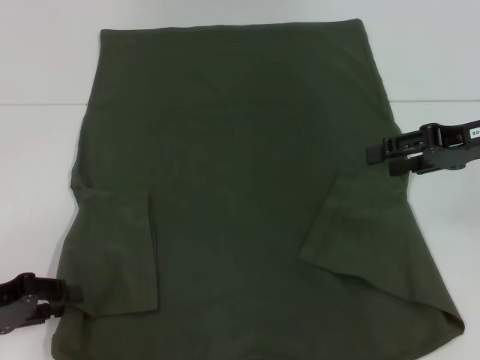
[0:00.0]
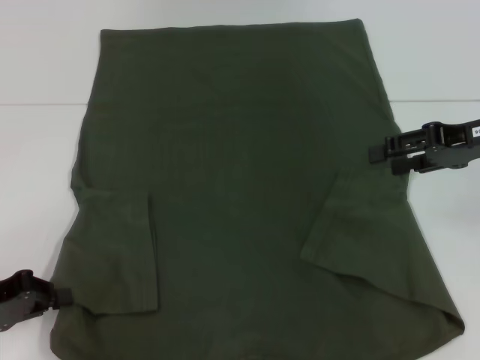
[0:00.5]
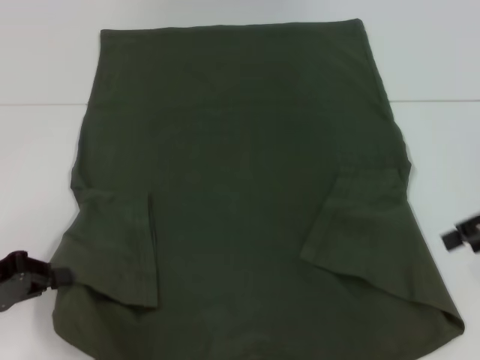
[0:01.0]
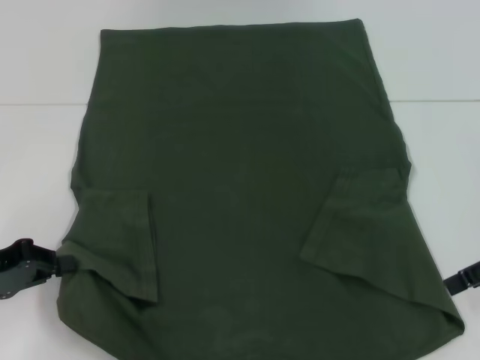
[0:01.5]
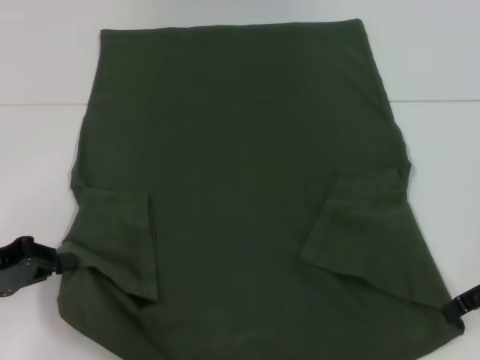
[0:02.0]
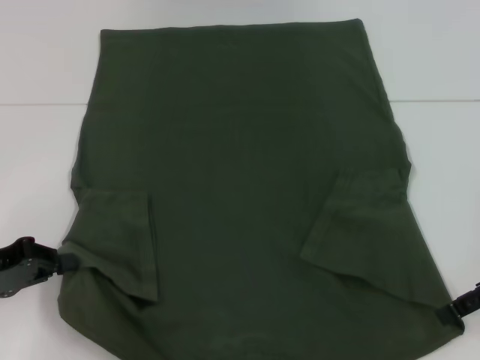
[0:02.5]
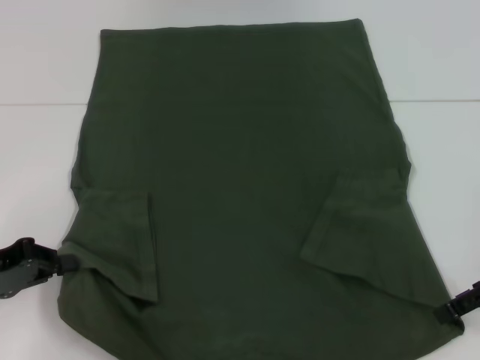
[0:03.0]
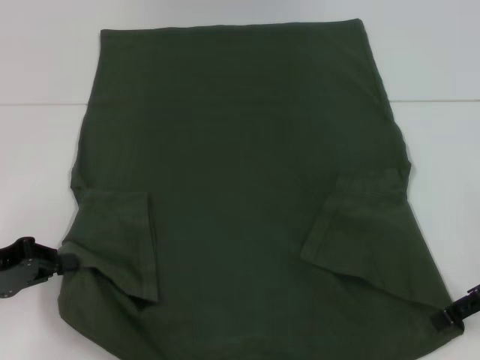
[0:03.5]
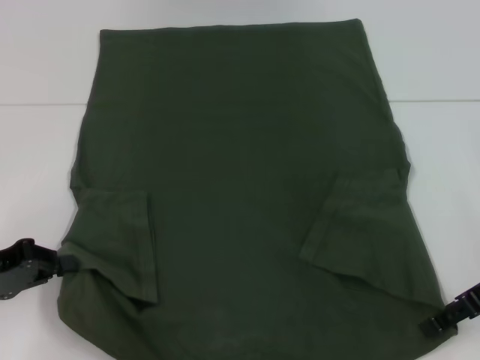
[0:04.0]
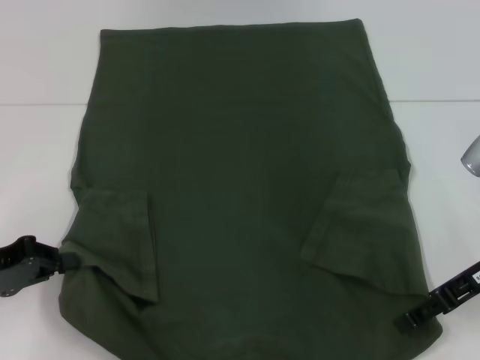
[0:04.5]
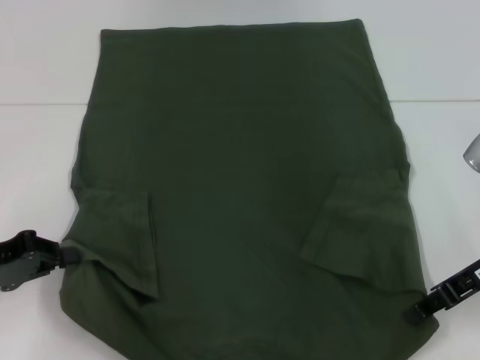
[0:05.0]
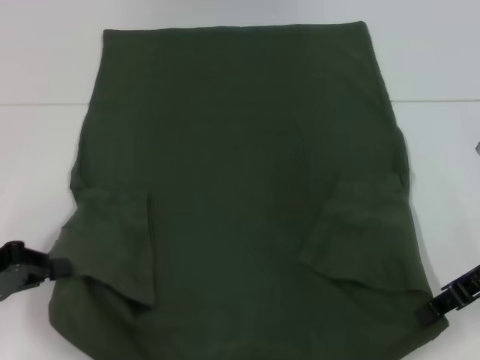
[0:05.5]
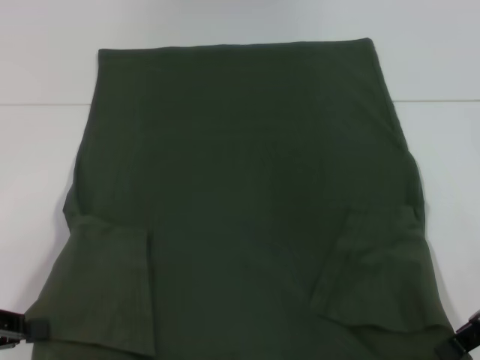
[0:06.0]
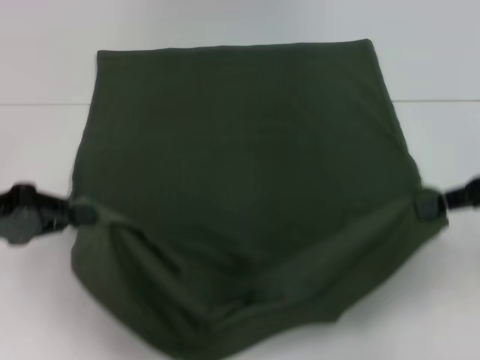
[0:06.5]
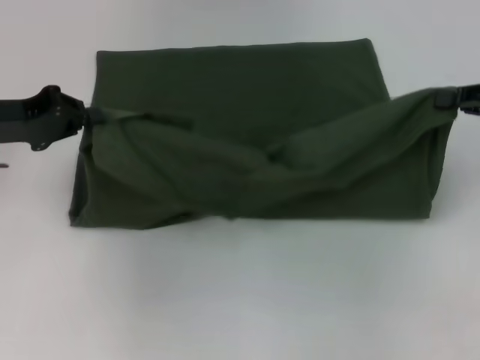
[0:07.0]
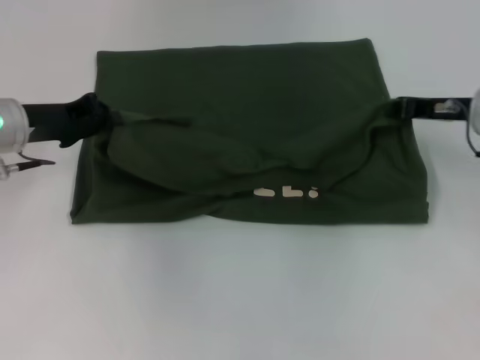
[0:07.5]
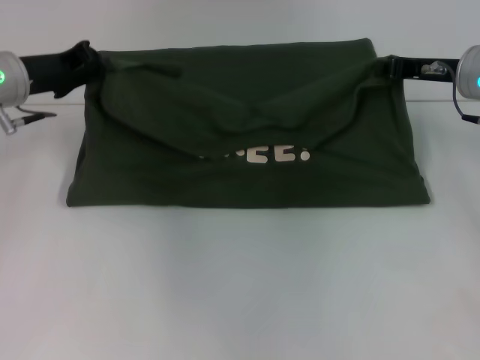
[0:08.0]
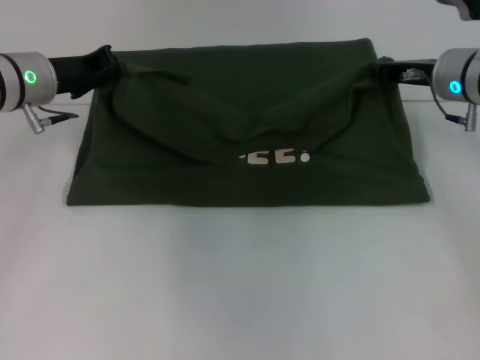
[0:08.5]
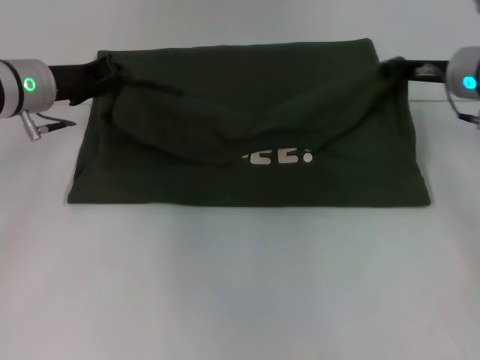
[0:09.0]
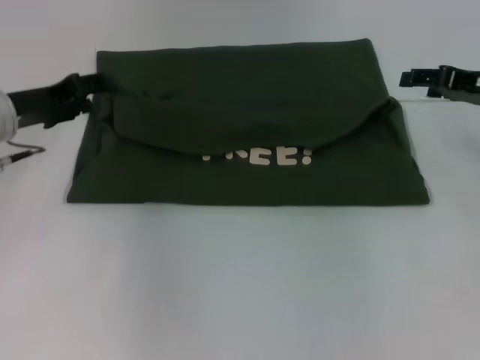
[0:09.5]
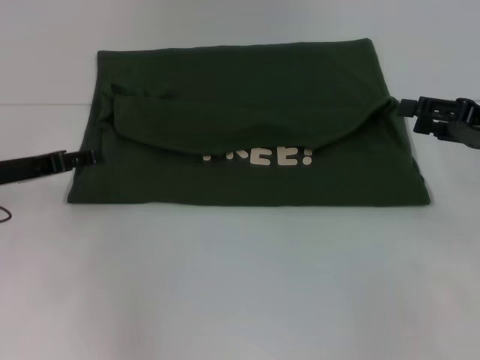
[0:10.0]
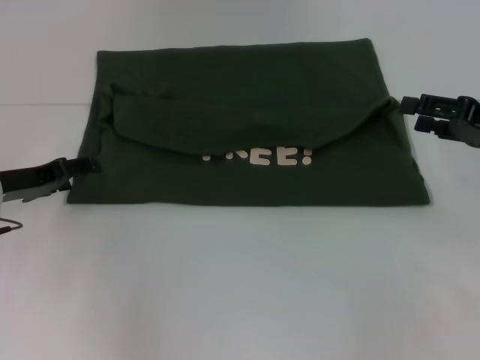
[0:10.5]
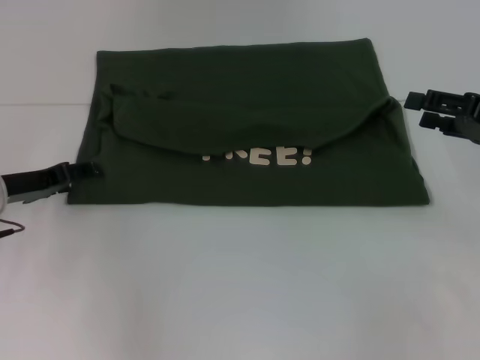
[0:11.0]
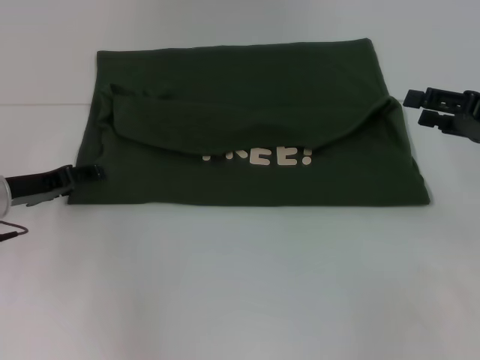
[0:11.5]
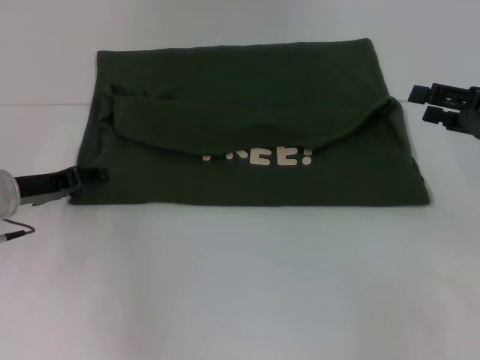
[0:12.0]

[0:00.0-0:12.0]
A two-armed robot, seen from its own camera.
Step, 1.0 to 5.0 s: Grab the bottom right corner with your right hand.
Step, 5.5 to 9.0 s: Fold the clothes with your left hand.
Step, 5.5 to 9.0 s: Fold the clothes with your right hand.
0.0 to 2.0 s: The right gripper heads backward, covering some 5 cm, while the left gripper closes its fingers.
2.0 to 4.0 s: The grippers stay close to where they were, moving slightly.
4.0 to 6.0 s: The left gripper goes some 5 cm backward, while the right gripper closes up.
6.0 to 8.0 s: The right gripper is displaced forward by approximately 15 cm, while the left gripper shifts roughly 25 cm forward and to the right.
8.0 to 10.0 s: The right gripper is displaced backward and to the right by some 10 cm, and opens up. The left gripper travels backward and downward by about 10 cm, and opens up.
10.0 to 12.0 s: The grippers stay close to where they were, moving slightly.

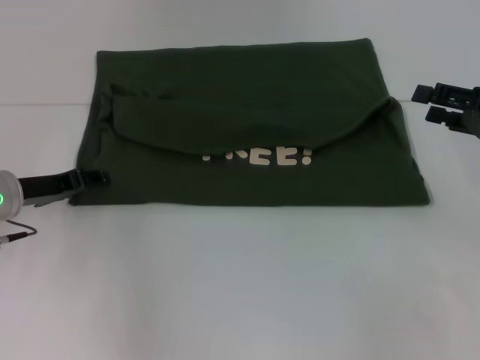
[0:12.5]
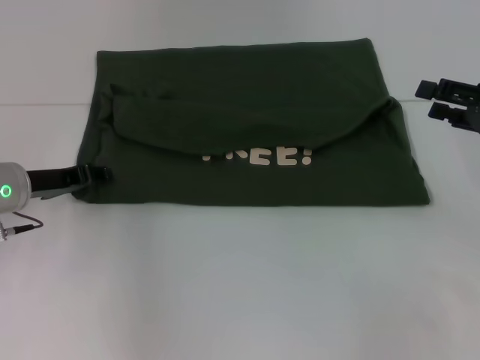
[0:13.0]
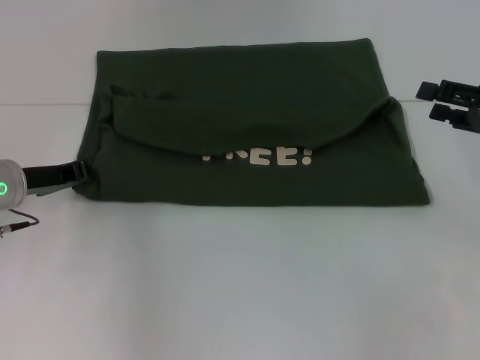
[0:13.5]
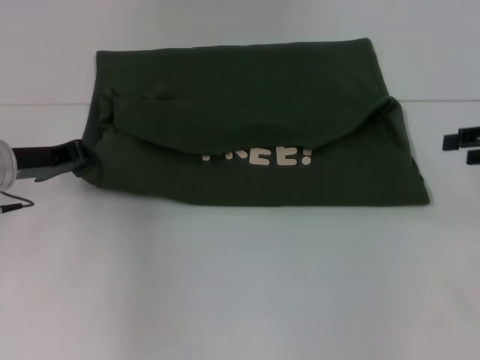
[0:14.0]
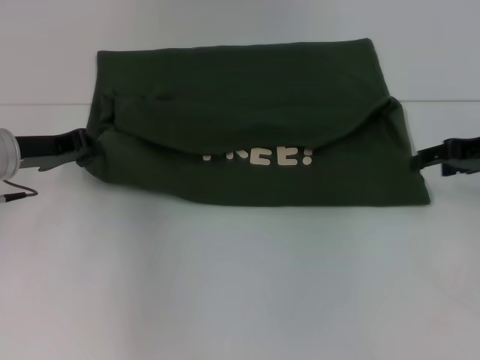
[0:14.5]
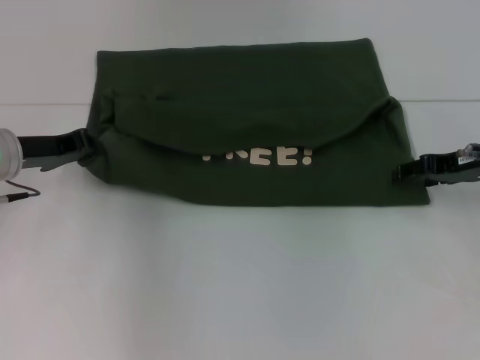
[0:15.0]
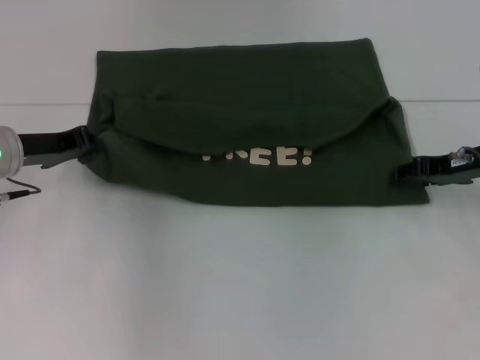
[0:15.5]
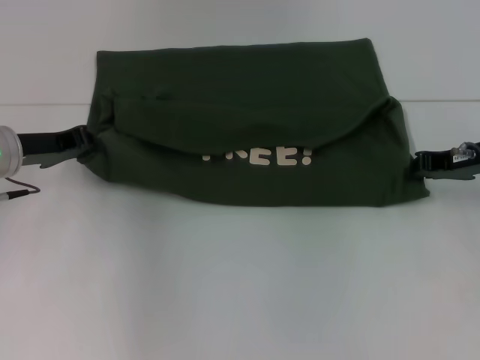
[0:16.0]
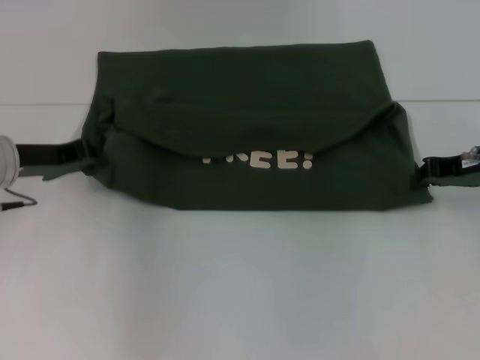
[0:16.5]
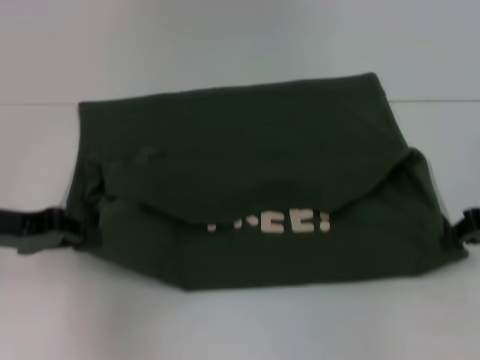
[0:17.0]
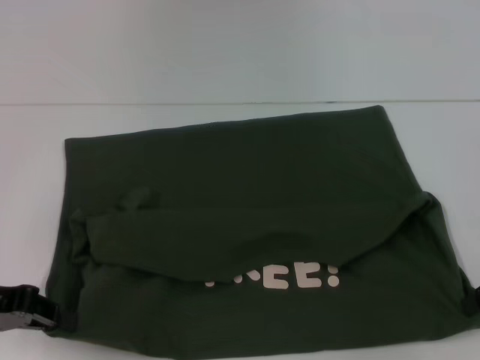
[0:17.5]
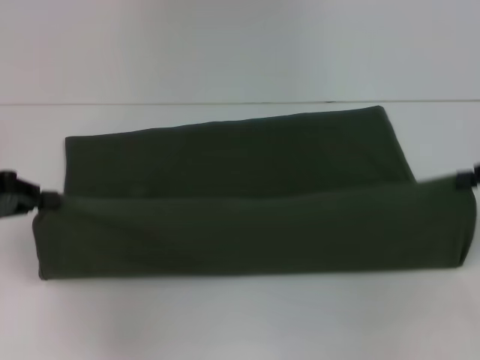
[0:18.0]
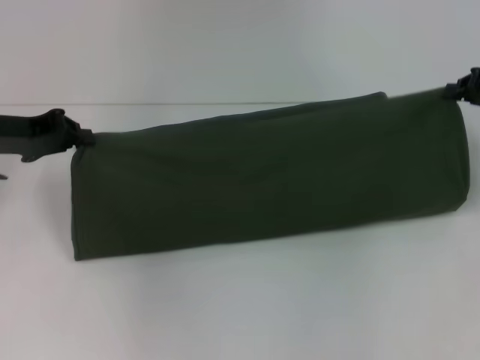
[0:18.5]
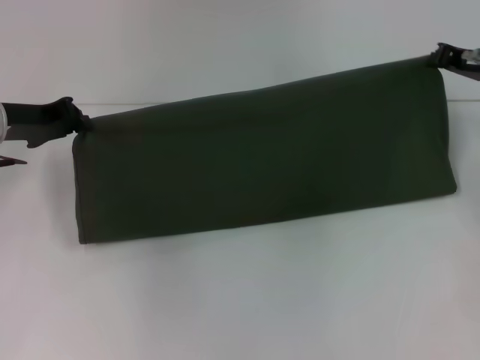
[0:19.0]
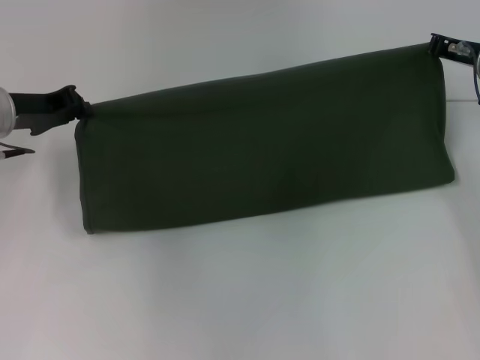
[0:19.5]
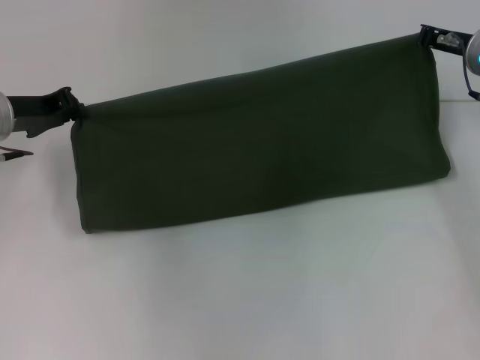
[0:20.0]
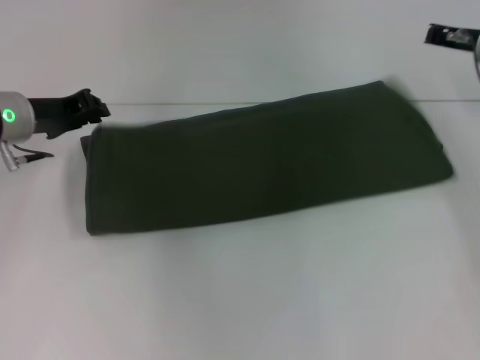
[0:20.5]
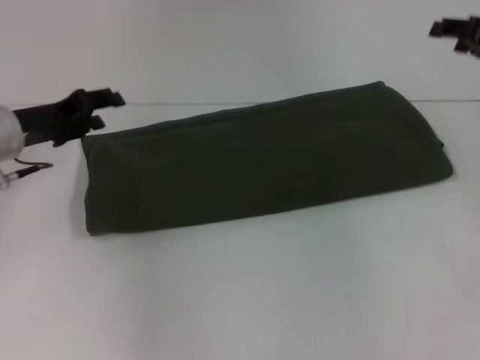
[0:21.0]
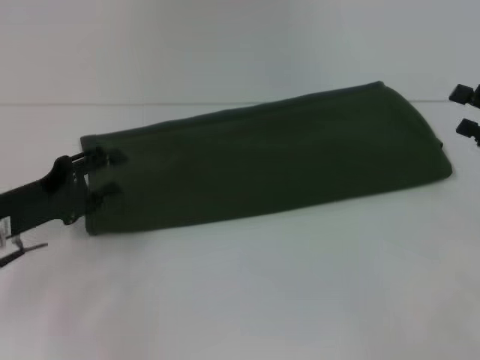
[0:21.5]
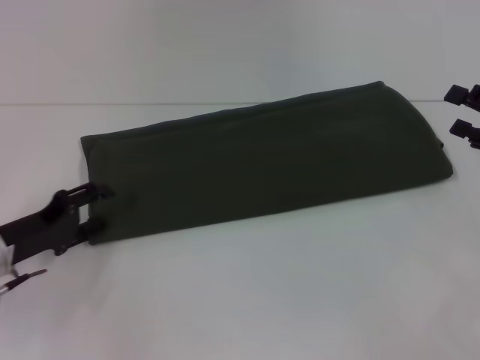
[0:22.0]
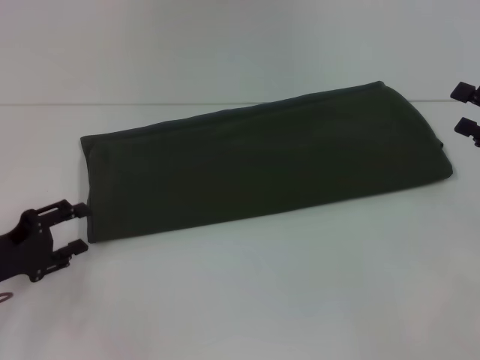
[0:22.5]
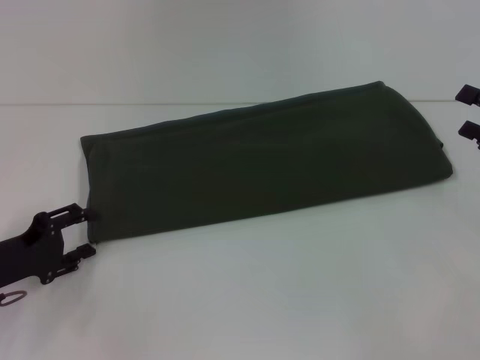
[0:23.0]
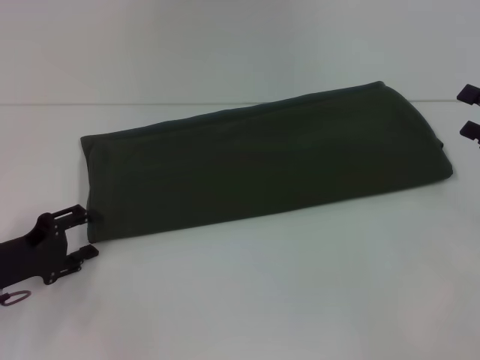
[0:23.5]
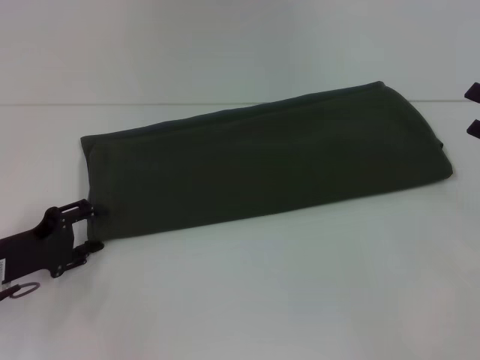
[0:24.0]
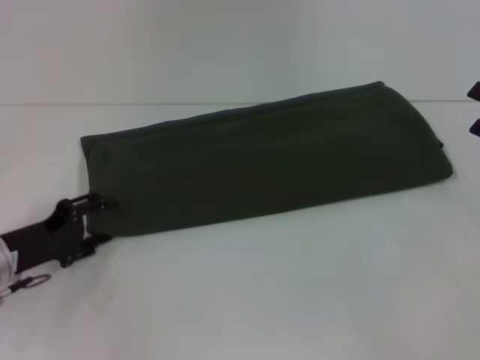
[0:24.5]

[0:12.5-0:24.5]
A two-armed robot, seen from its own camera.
Step, 12.5 to 17.5 s: Pull the clothes with your left hand.
Step, 12.5 to 17.5 s: Pull the clothes with your right hand.
Step, 18.0 to 20.5 s: Fold the clothes with your right hand.
12.5 to 14.5 s: The left gripper closes up.
14.5 to 16.5 s: The right gripper closes up.
16.5 to 18.5 s: The right gripper reaches approximately 10 cm backward, then returns; the left gripper reaches about 10 cm backward, then returns.
18.5 to 20.5 s: The right gripper moves forward and to the left, about 10 cm. The left gripper changes place by about 5 cm.
20.5 to 22.5 s: The left gripper is displaced backward and downward by some 15 cm, and opens up. The right gripper is displaced backward and to the right by approximately 20 cm, and opens its fingers.
22.5 to 24.5 s: There are only small adjustments of the grippers.

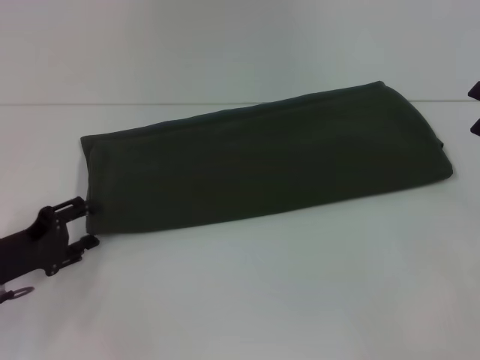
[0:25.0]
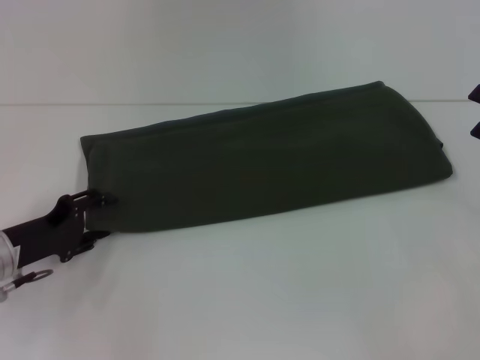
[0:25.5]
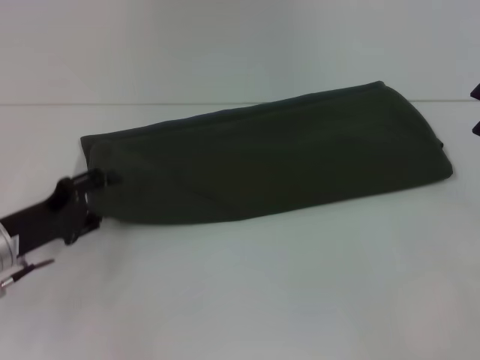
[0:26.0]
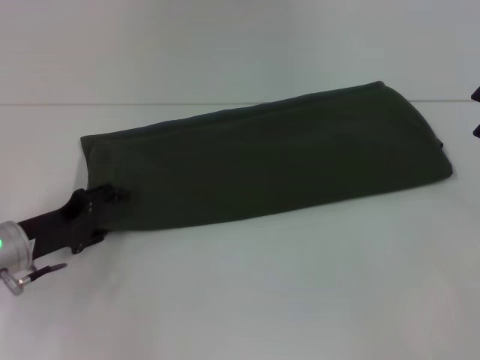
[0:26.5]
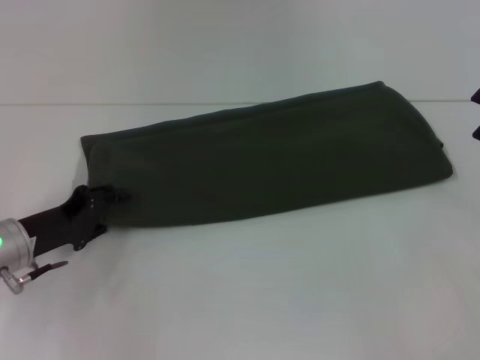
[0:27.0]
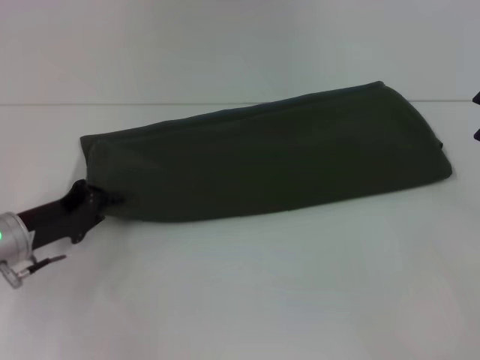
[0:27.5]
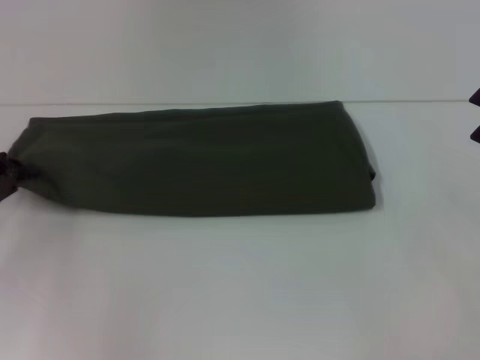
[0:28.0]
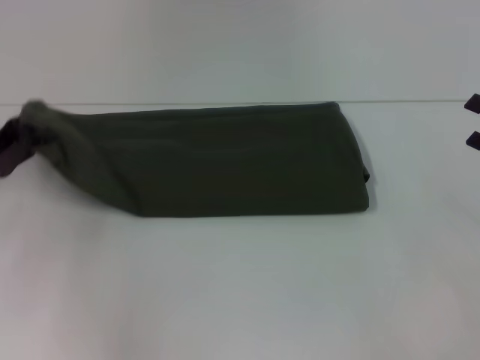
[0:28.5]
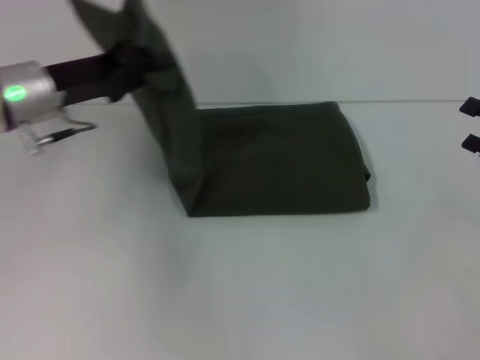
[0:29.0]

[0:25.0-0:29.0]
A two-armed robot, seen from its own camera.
25.0 to 27.0 s: There are only small adjustments of the grippers.
27.0 to 29.0 s: The left gripper moves upward and forward, about 15 cm, and closes its fingers.
